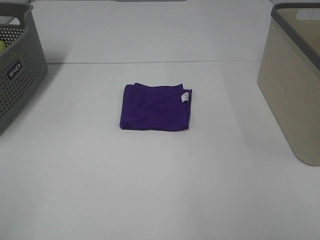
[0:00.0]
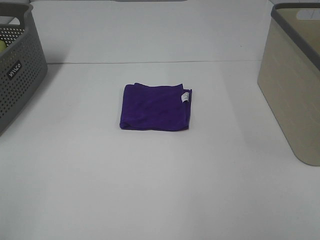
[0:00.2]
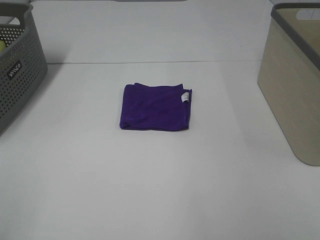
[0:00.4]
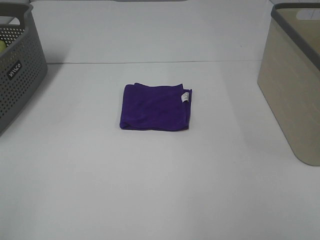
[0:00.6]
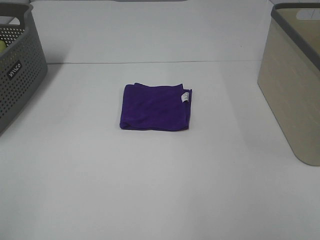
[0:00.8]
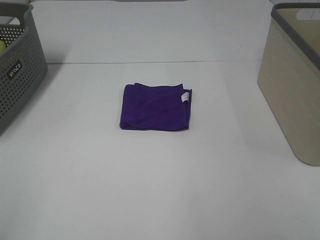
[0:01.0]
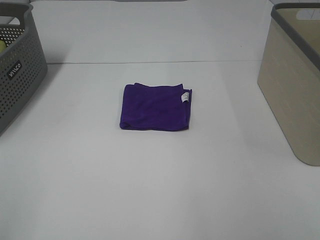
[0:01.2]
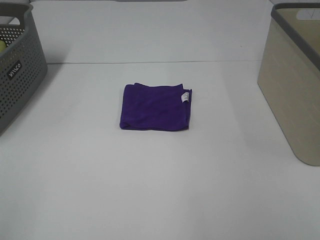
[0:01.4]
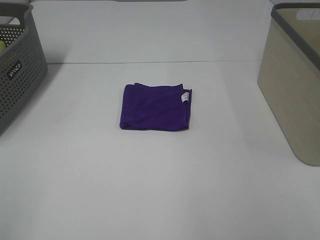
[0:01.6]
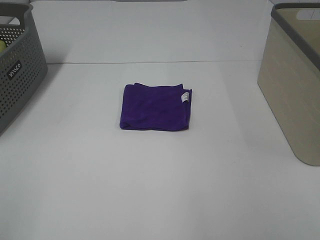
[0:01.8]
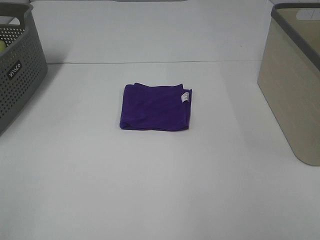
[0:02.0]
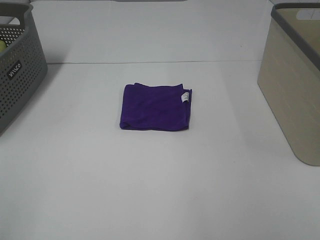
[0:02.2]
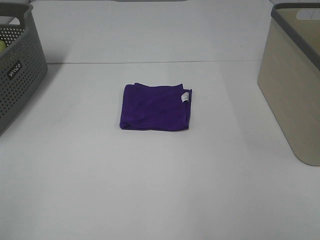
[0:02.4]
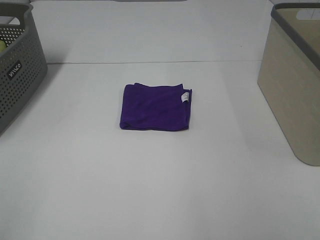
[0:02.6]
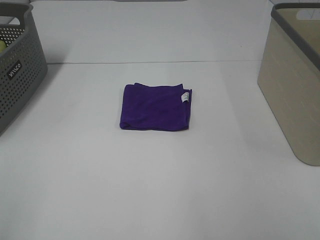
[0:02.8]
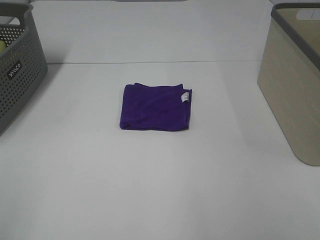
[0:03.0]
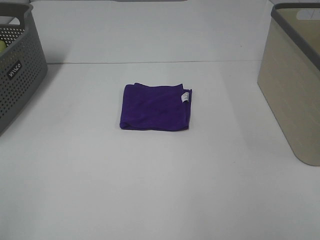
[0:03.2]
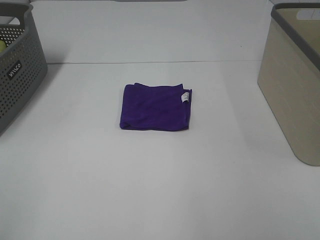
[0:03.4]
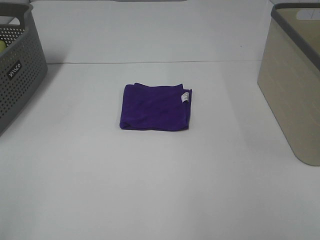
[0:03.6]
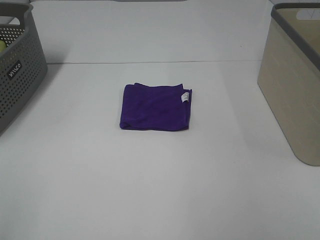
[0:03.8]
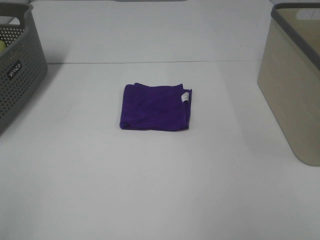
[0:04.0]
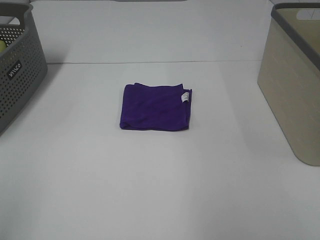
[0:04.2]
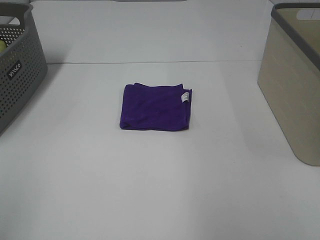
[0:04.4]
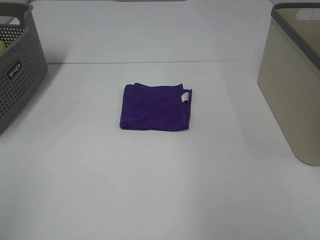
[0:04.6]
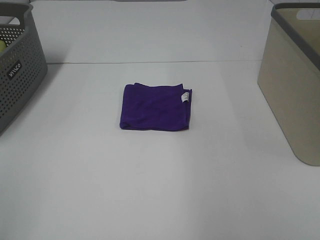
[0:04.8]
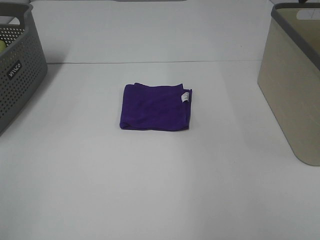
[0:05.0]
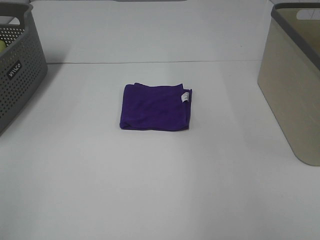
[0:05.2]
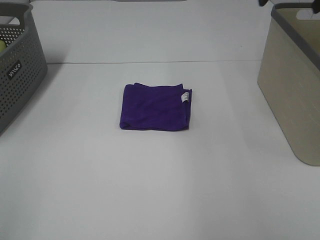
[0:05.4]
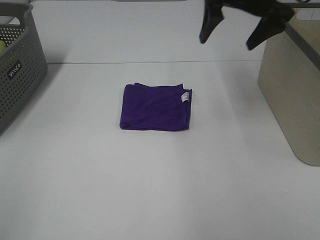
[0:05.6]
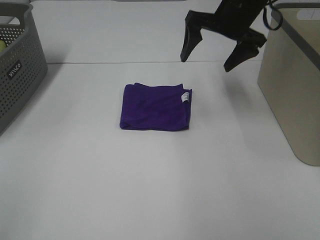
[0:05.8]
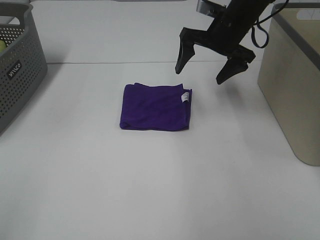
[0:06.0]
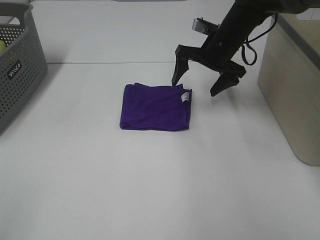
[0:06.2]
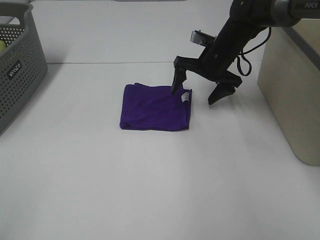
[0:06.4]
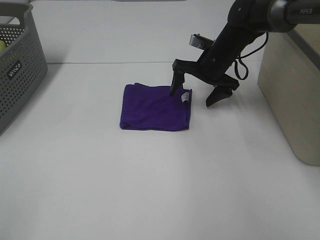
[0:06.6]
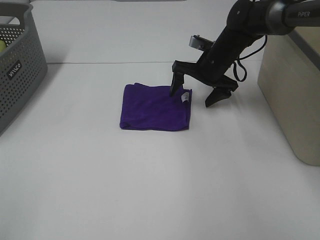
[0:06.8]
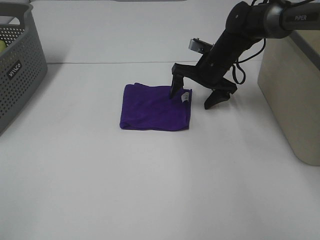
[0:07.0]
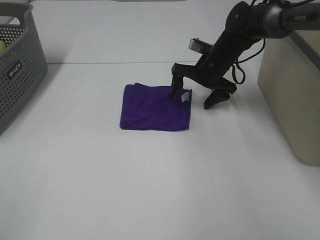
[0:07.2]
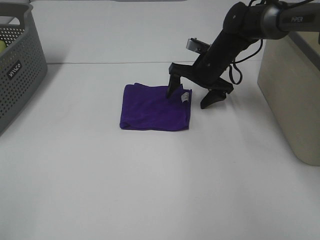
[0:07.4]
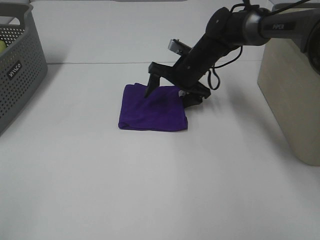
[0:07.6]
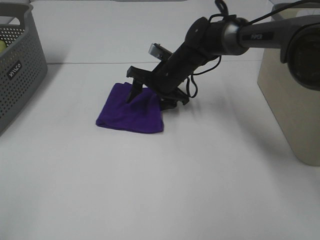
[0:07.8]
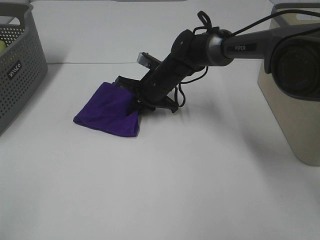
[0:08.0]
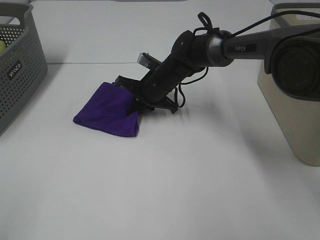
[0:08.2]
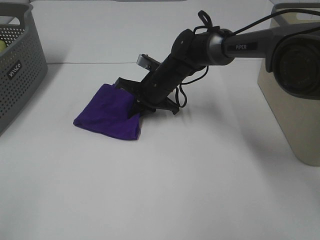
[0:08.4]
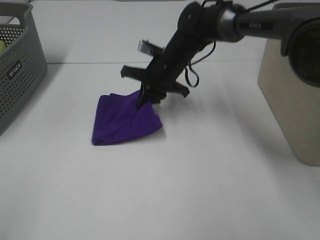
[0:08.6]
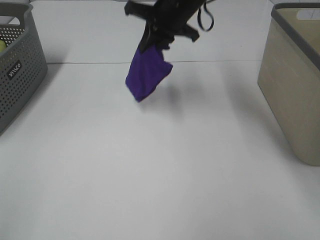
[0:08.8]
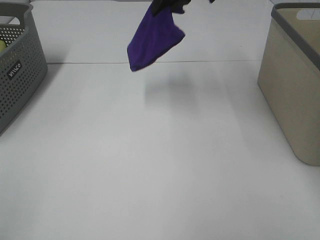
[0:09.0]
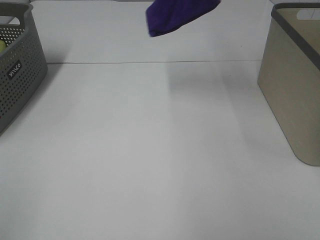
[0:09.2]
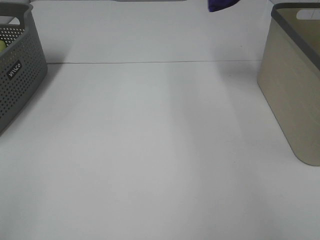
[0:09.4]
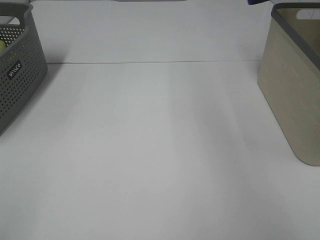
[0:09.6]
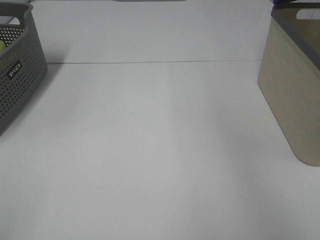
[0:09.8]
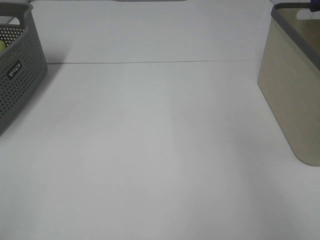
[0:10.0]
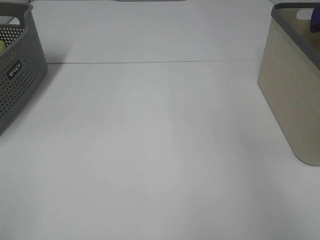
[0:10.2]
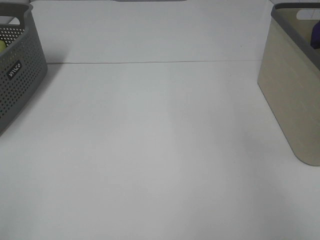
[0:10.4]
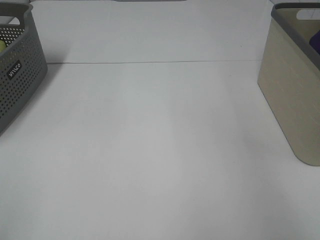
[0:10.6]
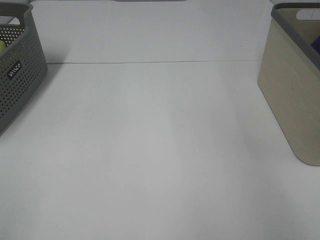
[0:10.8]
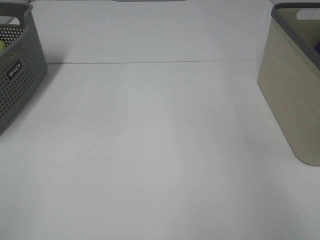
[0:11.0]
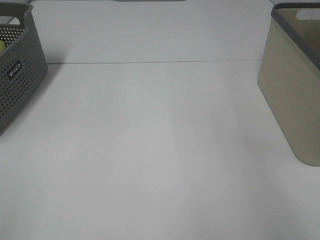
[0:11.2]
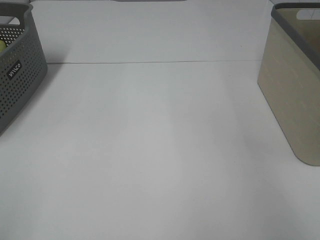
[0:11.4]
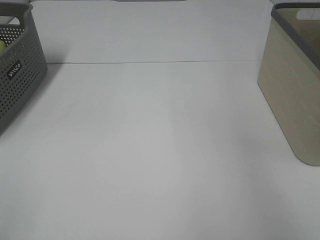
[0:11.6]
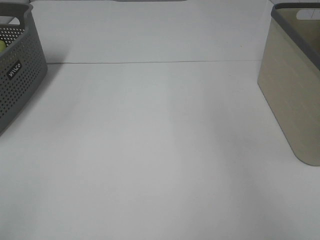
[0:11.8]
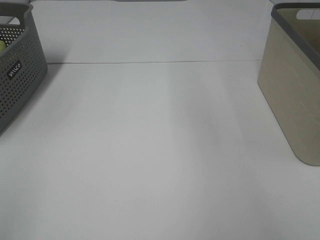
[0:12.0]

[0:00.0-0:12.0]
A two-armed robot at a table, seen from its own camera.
Step, 0:00.0 to 0:08.2: Right hand: grab the folded purple towel.
Step, 0:08.4 to 0:11.4: Right hand: place the purple towel in right basket.
0:00.0 to 0:03.0: Both grippers stay about where they are.
0:04.4 to 0:06.0: The right gripper moves forward, downward and to the left, about 35 cm.
0:06.0 to 0:07.6: The right gripper moves downward and to the left, approximately 15 cm.
0:07.6 to 0:09.0: The right gripper moves upward, about 25 cm, and closes its fingers.
0:09.0 to 0:10.4: The right gripper travels to the right by roughly 30 cm.

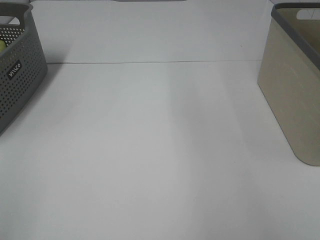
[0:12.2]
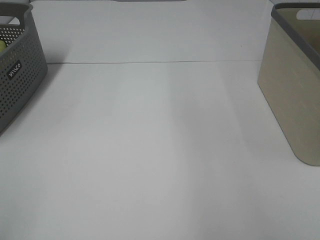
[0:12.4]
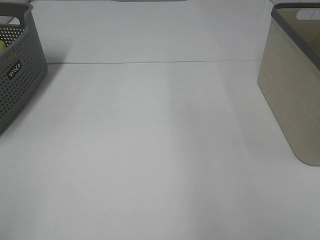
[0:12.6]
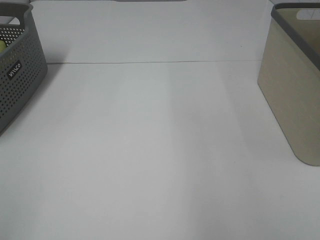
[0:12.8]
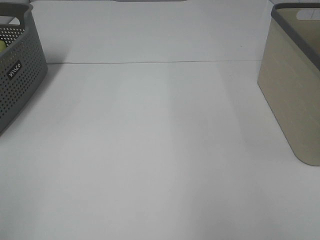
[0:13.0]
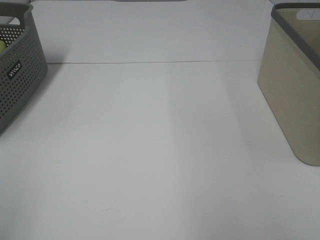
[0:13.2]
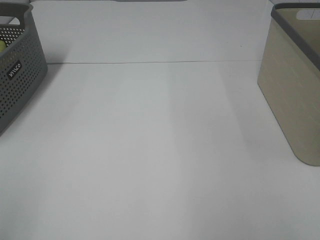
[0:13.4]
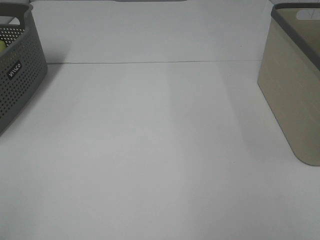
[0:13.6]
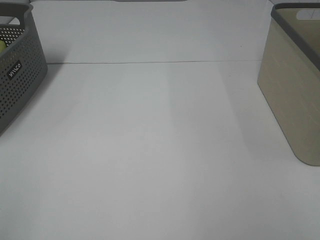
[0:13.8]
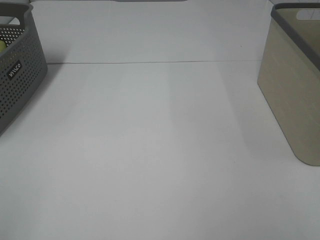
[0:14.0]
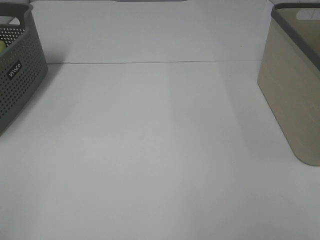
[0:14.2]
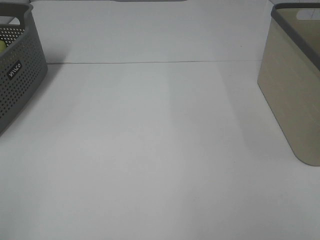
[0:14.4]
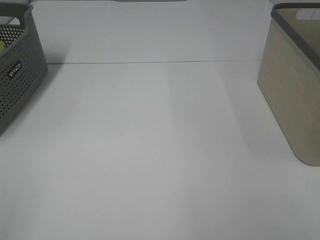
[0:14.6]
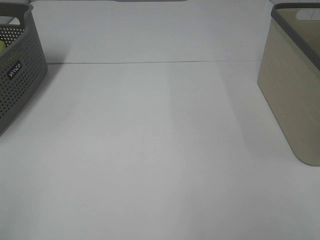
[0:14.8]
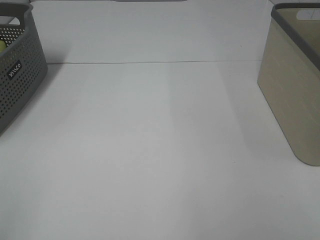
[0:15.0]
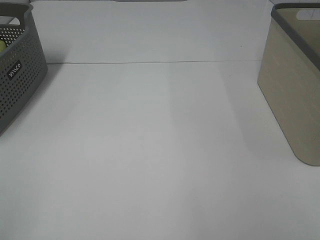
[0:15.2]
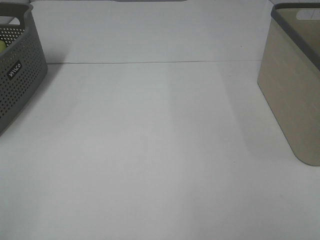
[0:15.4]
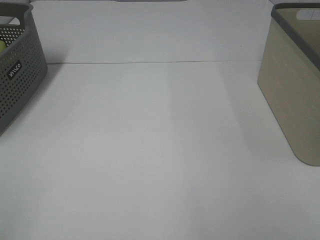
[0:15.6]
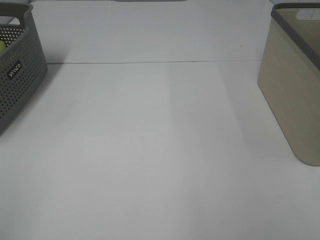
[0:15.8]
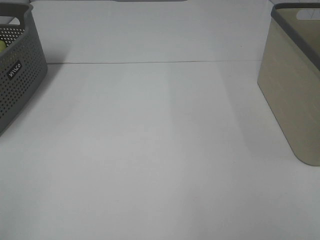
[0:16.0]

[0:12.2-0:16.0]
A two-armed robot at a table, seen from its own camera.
0:14.8 to 0:16.0: The two grippers keep their place.

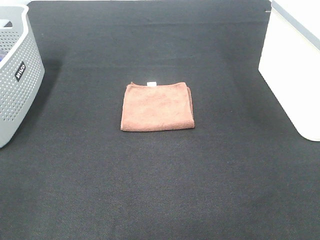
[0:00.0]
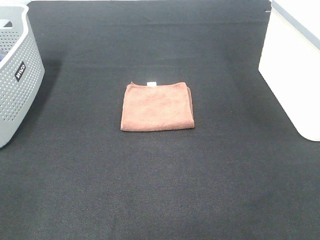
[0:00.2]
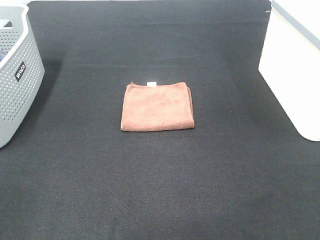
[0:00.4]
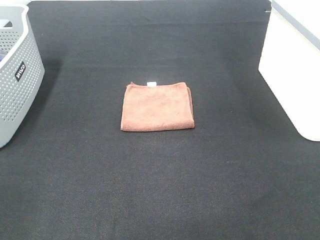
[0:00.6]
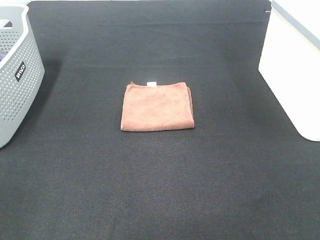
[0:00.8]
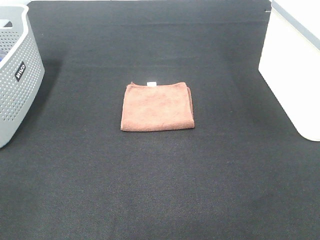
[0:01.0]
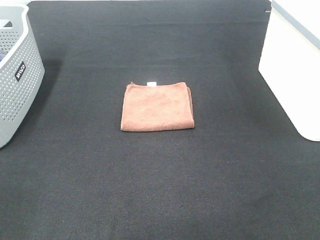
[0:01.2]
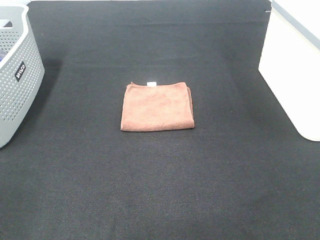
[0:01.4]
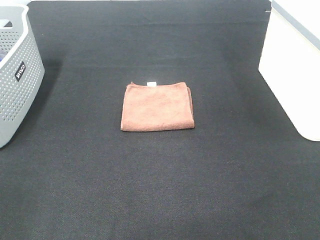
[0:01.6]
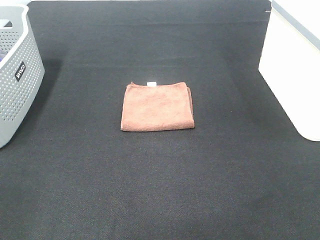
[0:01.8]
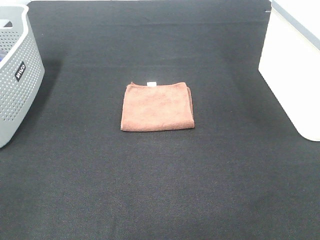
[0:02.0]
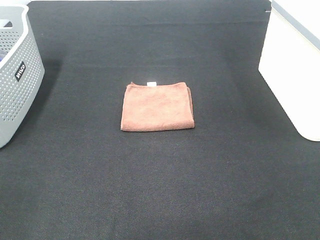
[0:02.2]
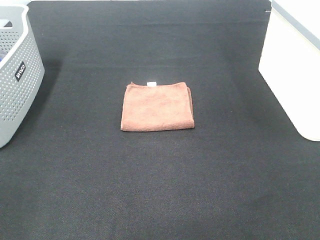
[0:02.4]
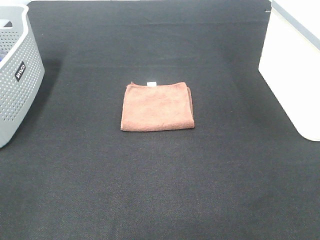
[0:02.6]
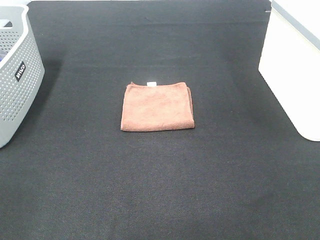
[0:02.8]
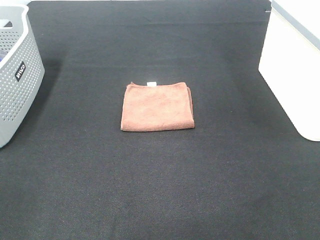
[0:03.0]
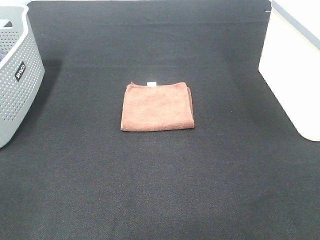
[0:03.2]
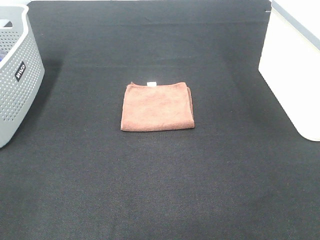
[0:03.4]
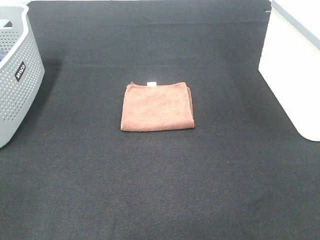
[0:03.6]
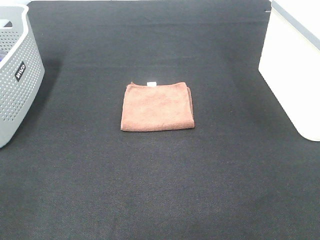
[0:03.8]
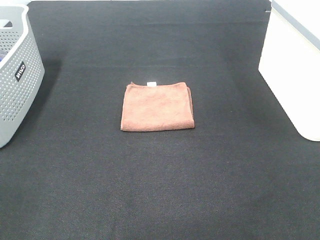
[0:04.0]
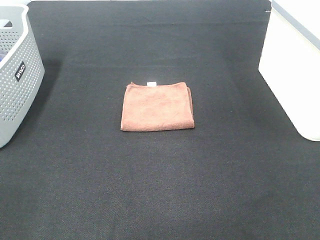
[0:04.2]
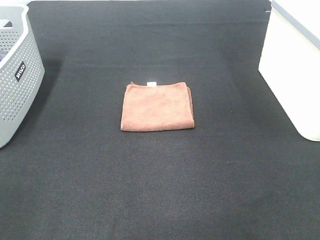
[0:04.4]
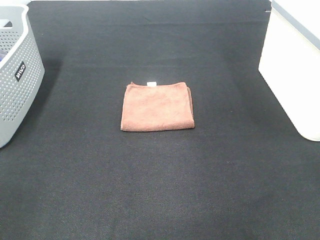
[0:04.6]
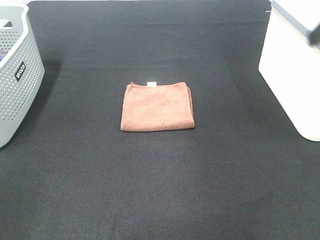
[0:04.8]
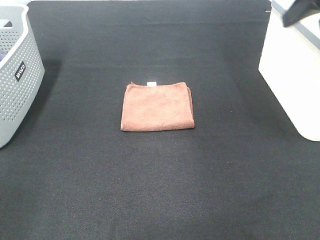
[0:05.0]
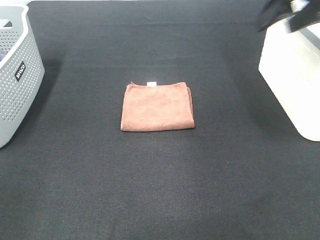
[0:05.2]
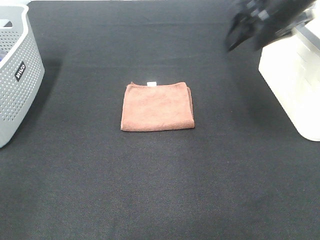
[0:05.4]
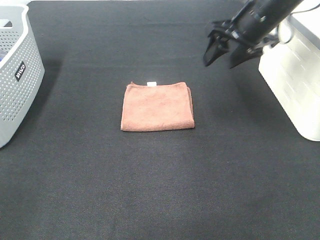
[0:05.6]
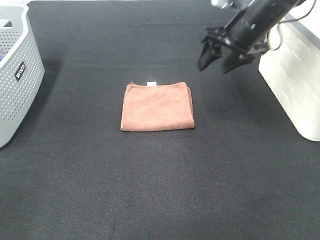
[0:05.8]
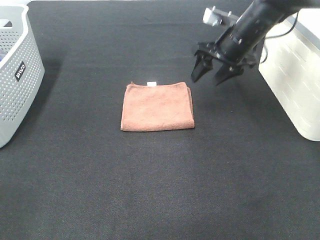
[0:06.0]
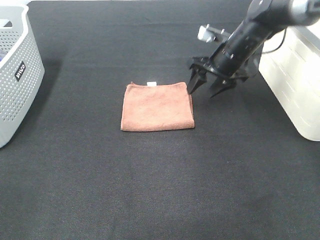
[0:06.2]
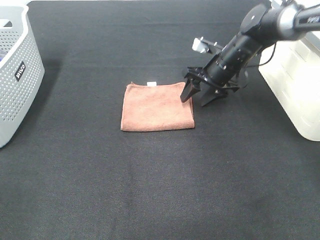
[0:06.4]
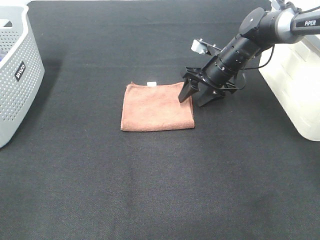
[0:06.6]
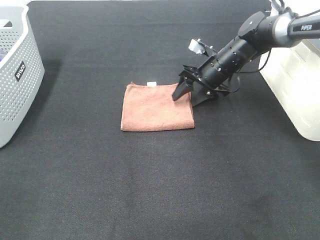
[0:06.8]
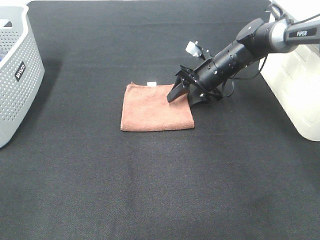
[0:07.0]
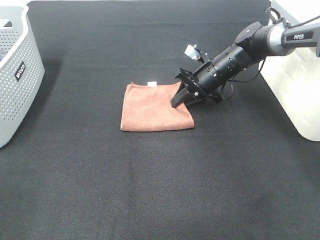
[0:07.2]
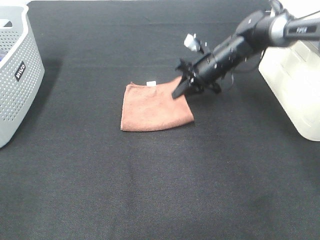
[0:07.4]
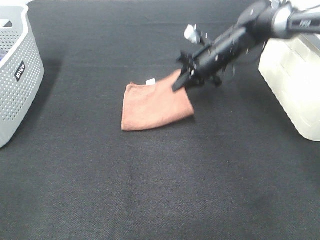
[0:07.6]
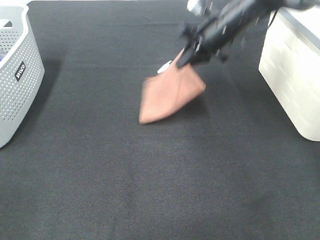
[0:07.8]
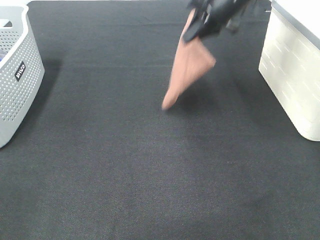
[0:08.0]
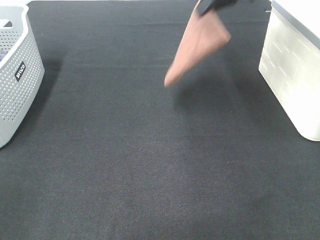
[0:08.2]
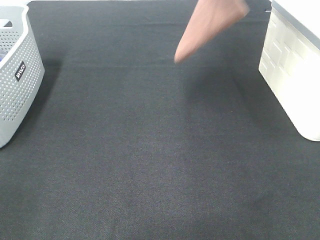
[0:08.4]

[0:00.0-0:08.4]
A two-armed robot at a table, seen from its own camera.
Step, 0:00.0 to 0:07.4: Right hand: grab the folded brown towel.
0:00.0 to 0:02.8: Neither gripper changes place.
0:04.2 to 0:05.6: The right gripper is displaced forward by roughly 35 cm.
0:05.6 to 0:07.0: The right gripper is displaced downward by roughly 15 cm.
0:07.0 to 0:08.4: The right gripper is displaced upward by about 30 cm, and closes up.
